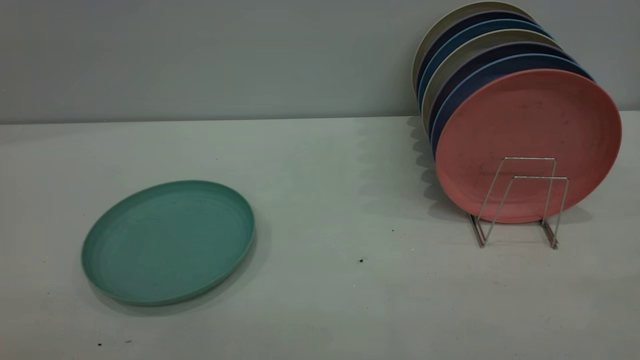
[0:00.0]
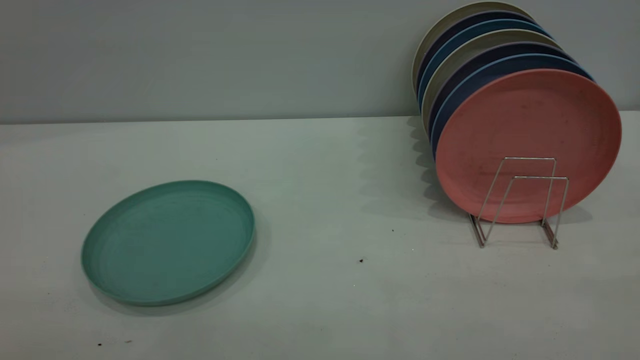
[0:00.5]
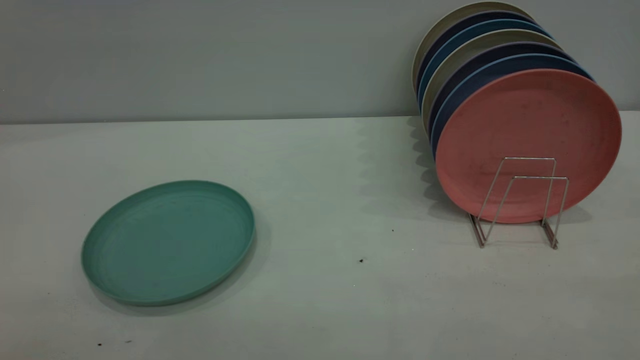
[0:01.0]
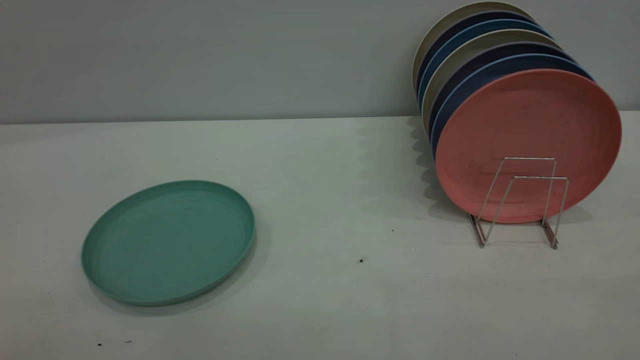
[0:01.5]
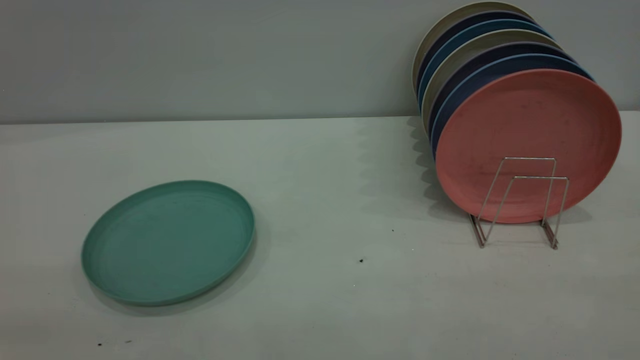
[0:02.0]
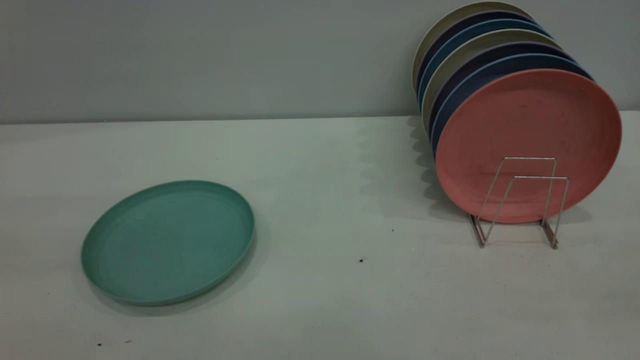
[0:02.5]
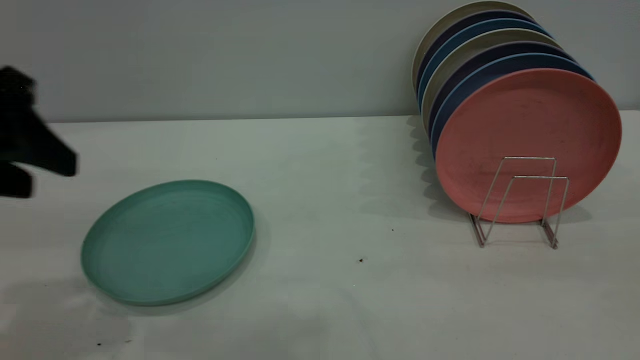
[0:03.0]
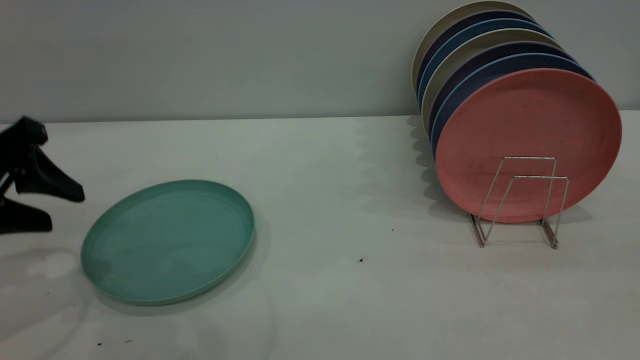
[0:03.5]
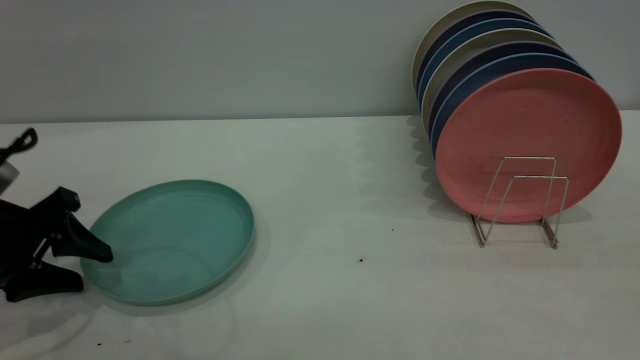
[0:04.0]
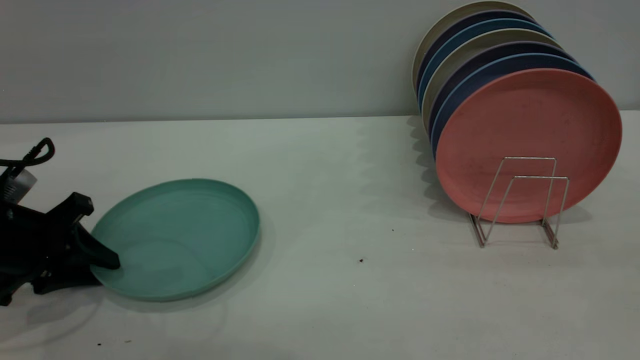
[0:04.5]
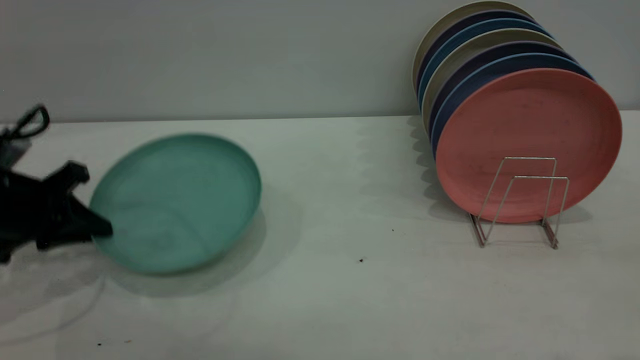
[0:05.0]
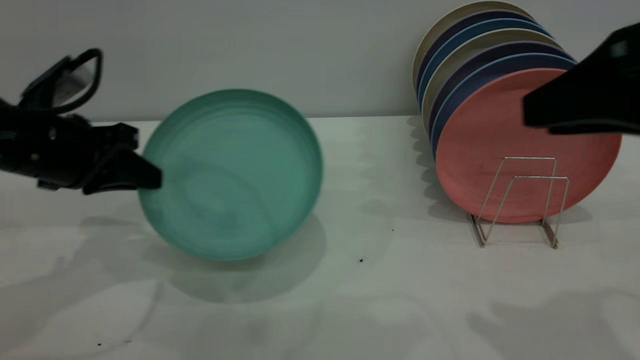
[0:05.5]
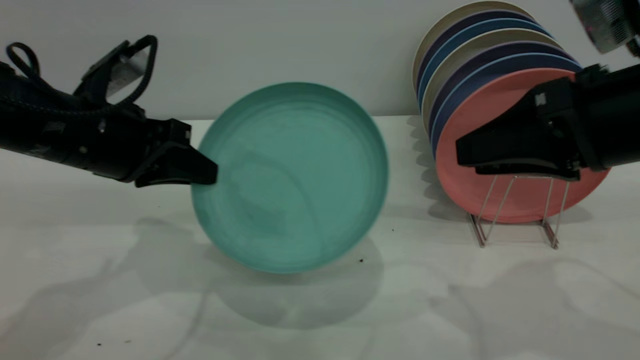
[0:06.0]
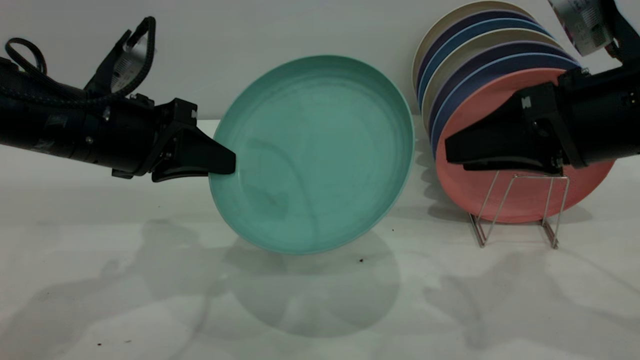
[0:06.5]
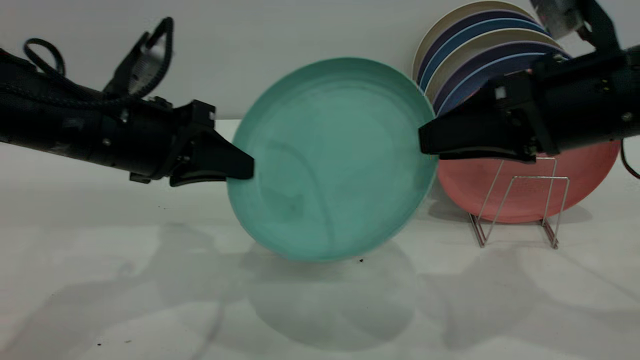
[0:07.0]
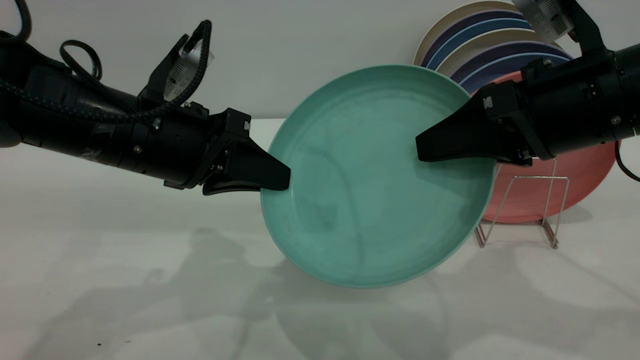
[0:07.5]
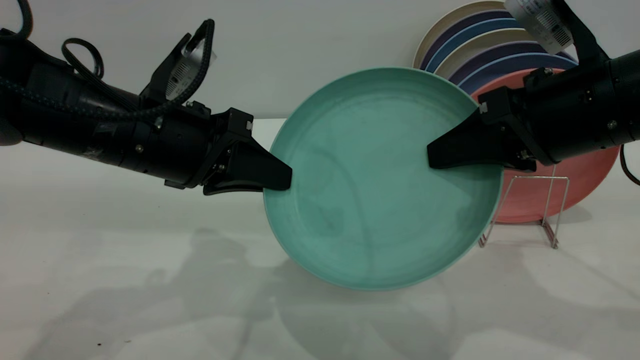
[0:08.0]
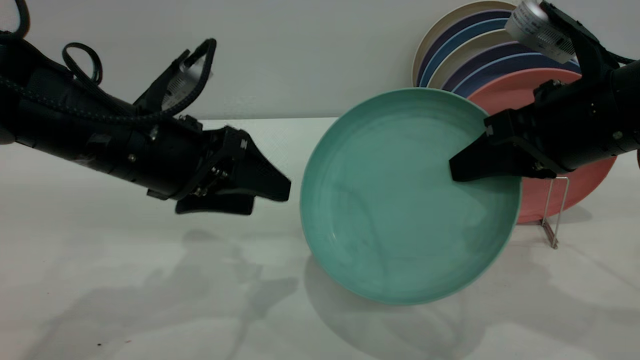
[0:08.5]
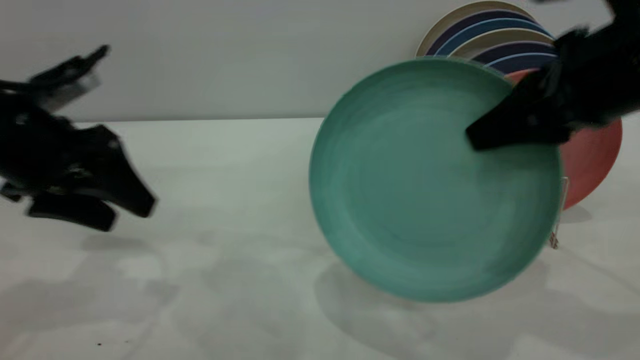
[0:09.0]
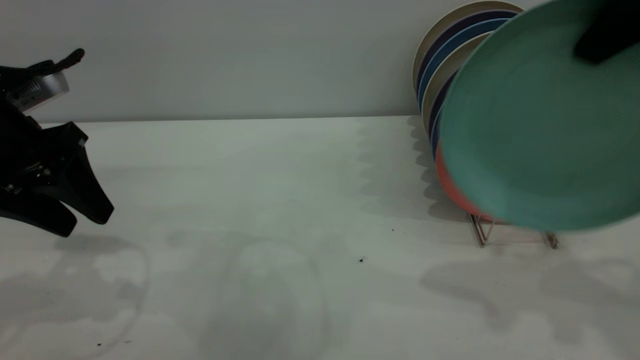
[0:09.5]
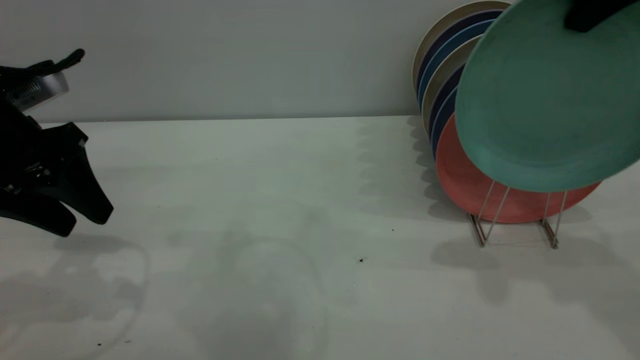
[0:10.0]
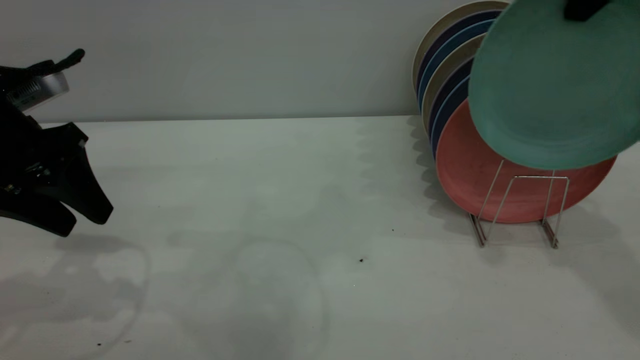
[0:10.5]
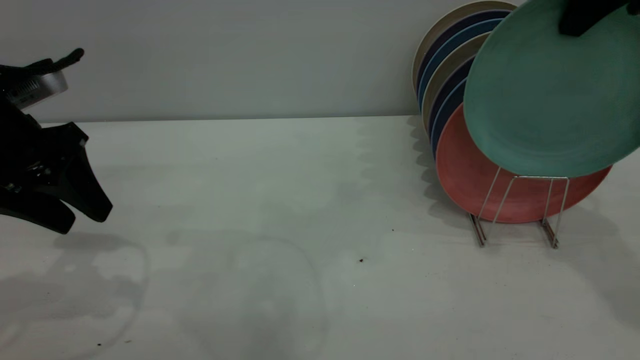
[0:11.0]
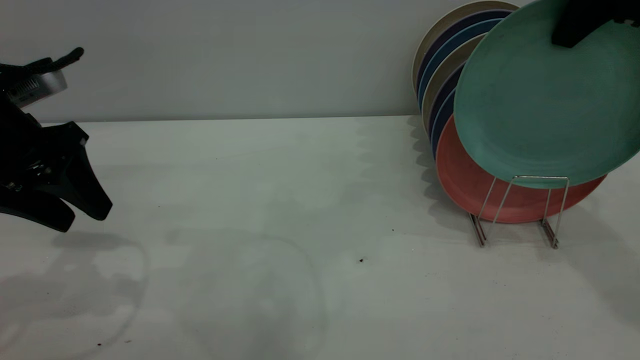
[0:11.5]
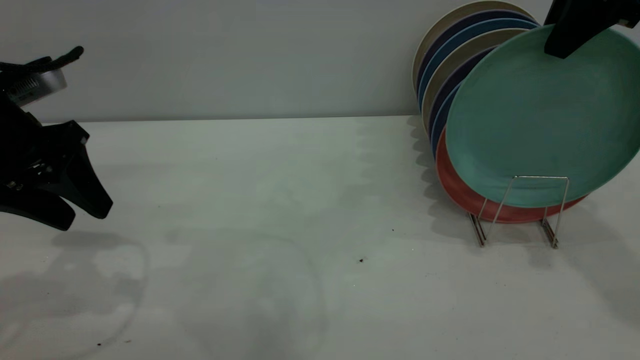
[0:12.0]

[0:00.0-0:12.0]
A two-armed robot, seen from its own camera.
Task of the whole recording: the left gripper grasp the green plate, the left gripper pass the green plate to the right gripper, and the right gripper place the green plate on the plate rack.
Step, 0:00.0 to 0:04.5: Pick up the plate with the left gripper.
Step, 0:05.0 to 0:08.0: Pass the plate from the left gripper to the right gripper.
0:02.0 to 0:04.0: The left gripper shifts approximately 40 cm forward and downward.
0:04.0 to 0:06.0: The right gripper travels forward and downward by roughly 20 cm, while the left gripper goes some 15 cm to the right, upward and forward, and closes.
0:06.0 to 0:08.0: The left gripper goes roughly 5 cm to the right, while the right gripper closes its fingers.
0:08.0 to 0:10.0: The left gripper is displaced to the left by some 15 cm, and opens. The right gripper shifts some 15 cm upward.
0:10.0 to 0:12.0: The right gripper ends up about 5 cm from where it was, and opens up.

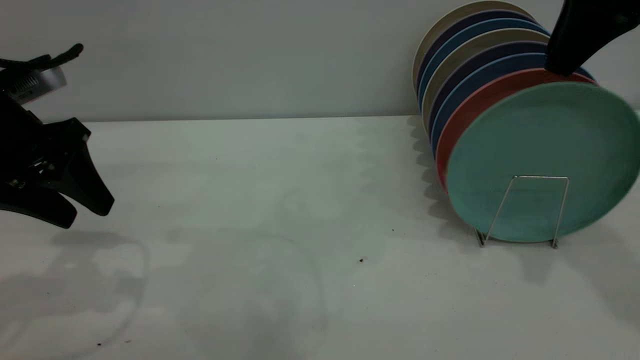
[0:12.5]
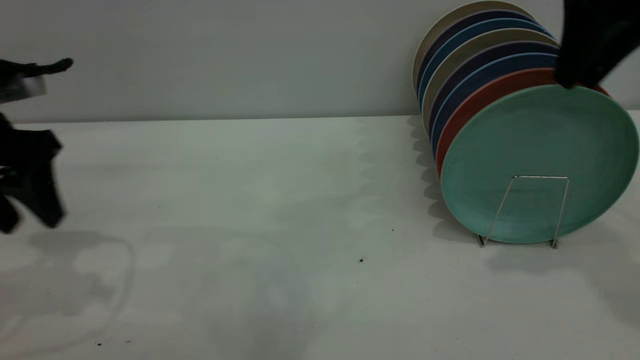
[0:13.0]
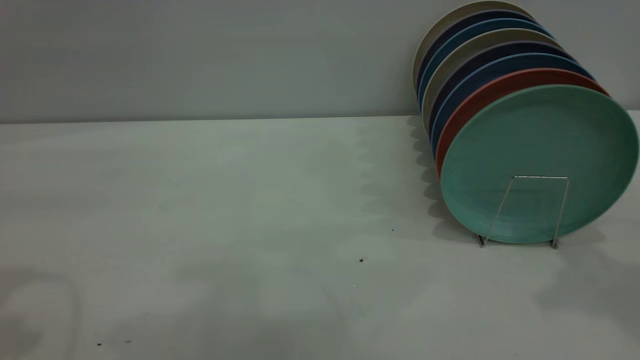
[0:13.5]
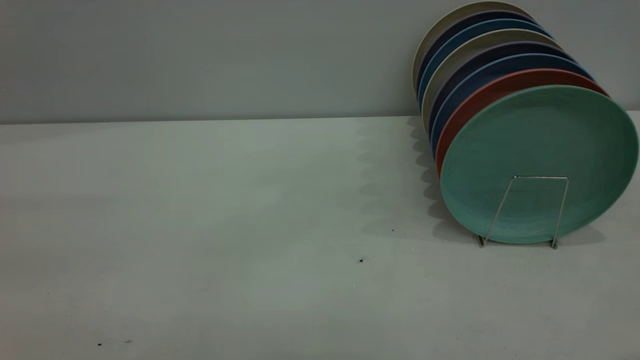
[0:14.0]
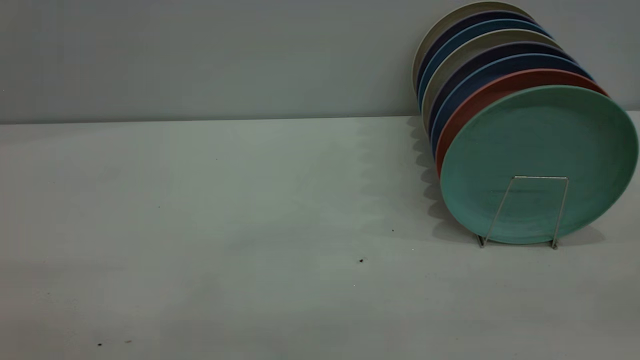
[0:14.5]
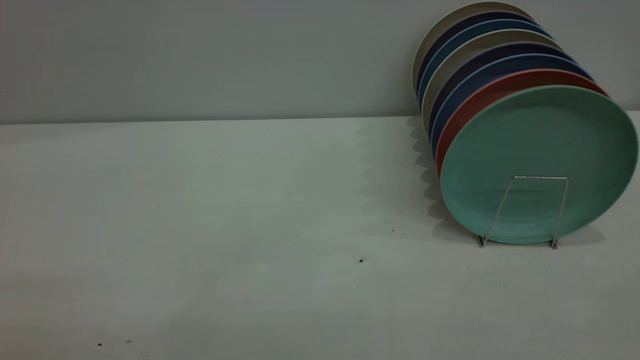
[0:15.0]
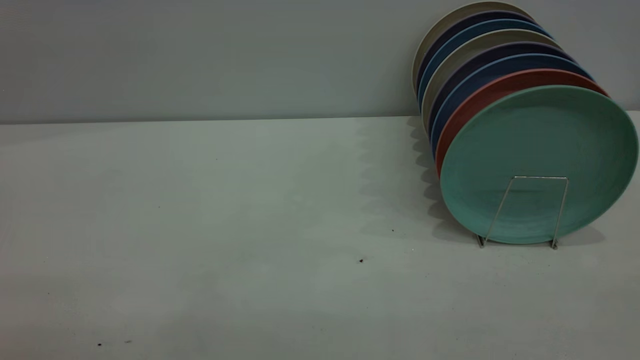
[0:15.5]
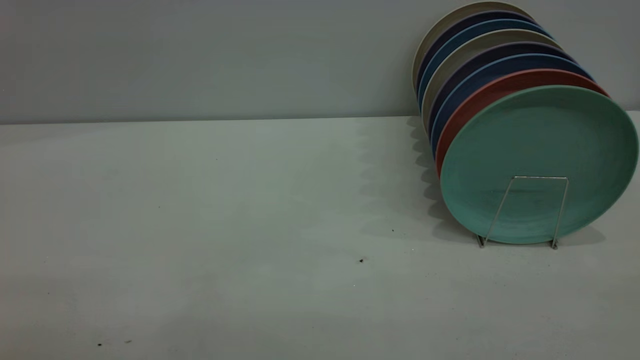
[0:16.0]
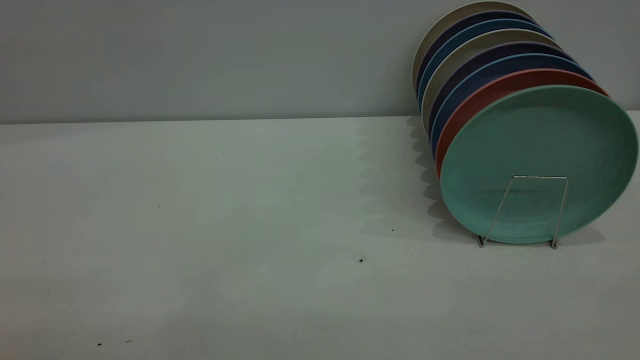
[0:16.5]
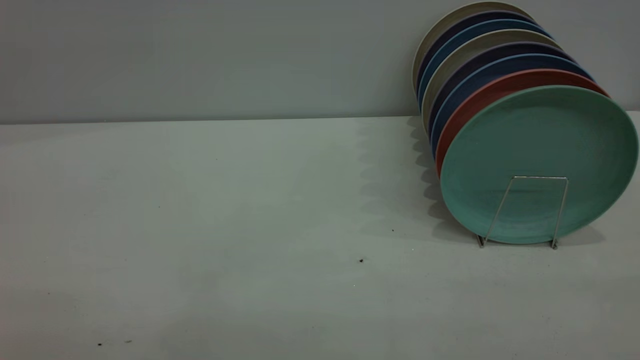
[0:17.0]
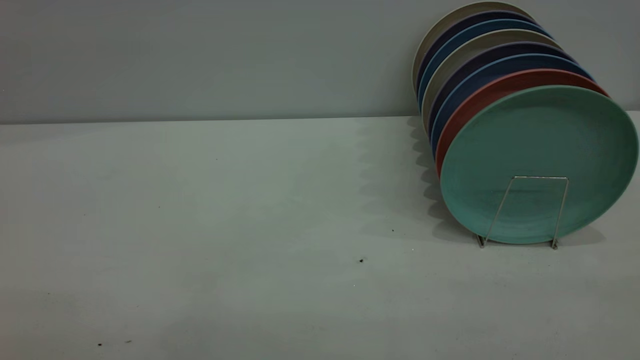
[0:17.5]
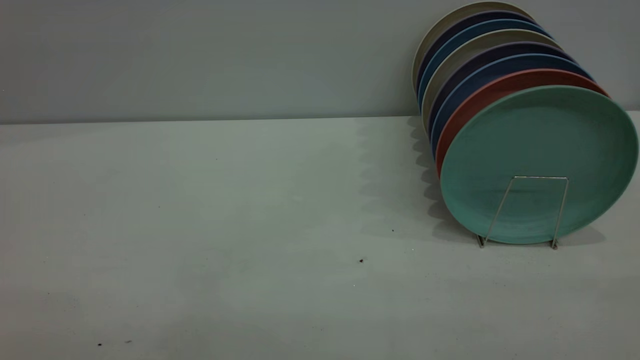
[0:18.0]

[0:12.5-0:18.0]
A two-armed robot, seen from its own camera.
Task of the whole recording: the left gripper grasp the green plate, the left gripper pass the green plate to the right gripper, and the right gripper place the green plate on the plate rack.
0:12.5 to 0:14.5: The left gripper goes some 35 cm backward and upward, while the right gripper moves backward, some 35 cm.
